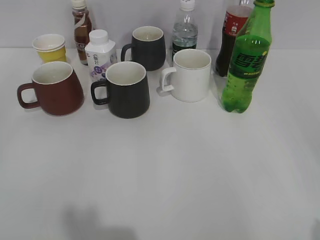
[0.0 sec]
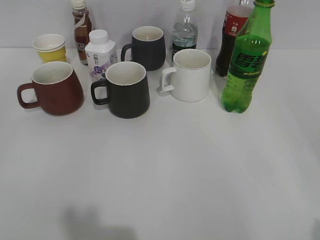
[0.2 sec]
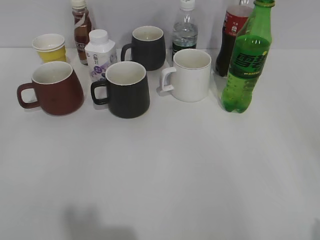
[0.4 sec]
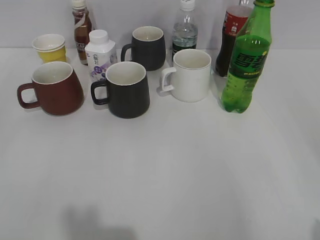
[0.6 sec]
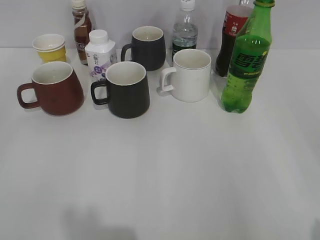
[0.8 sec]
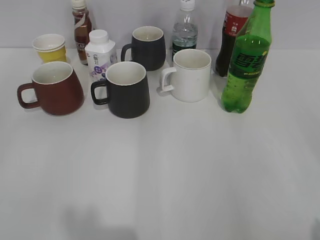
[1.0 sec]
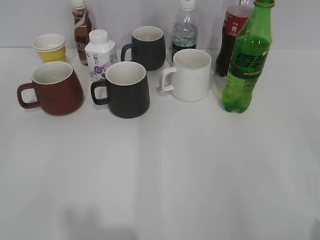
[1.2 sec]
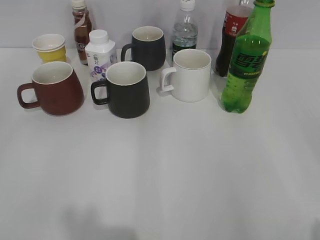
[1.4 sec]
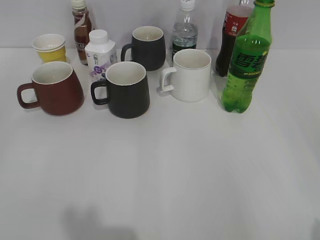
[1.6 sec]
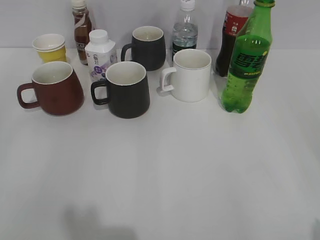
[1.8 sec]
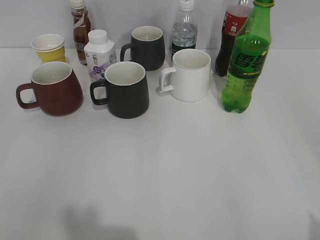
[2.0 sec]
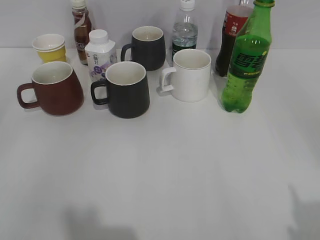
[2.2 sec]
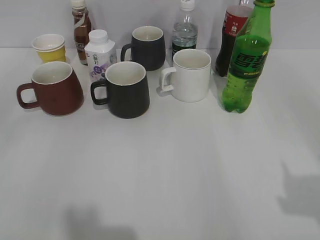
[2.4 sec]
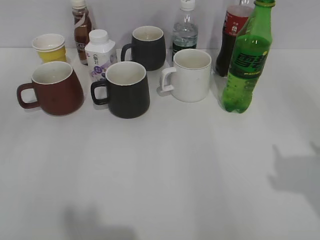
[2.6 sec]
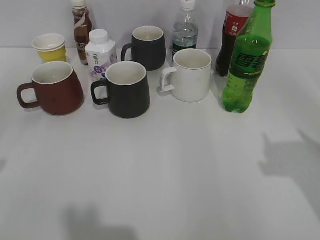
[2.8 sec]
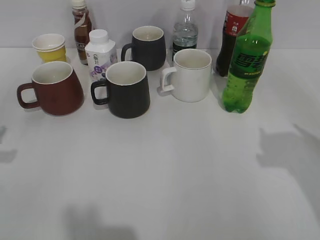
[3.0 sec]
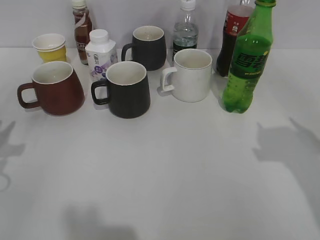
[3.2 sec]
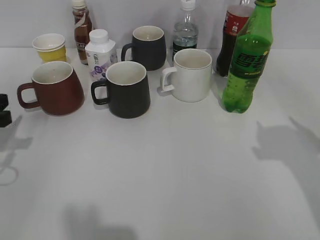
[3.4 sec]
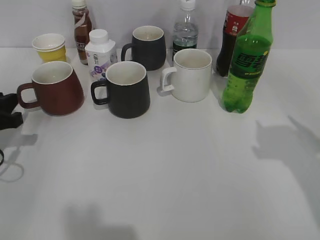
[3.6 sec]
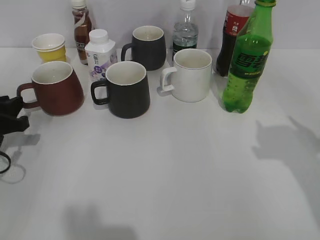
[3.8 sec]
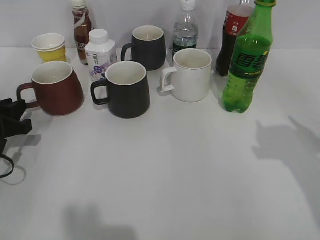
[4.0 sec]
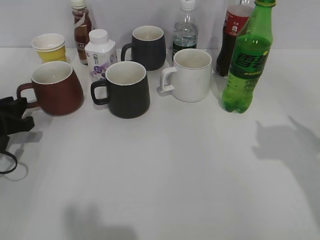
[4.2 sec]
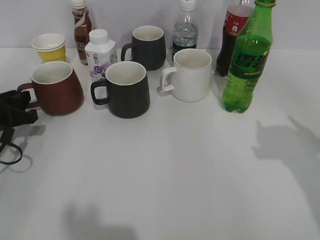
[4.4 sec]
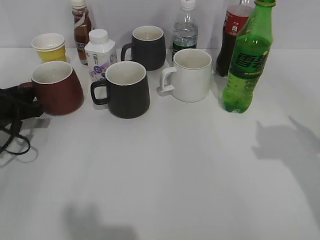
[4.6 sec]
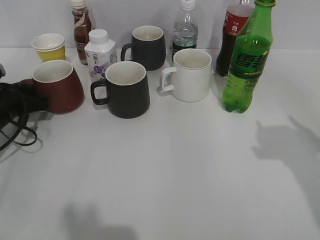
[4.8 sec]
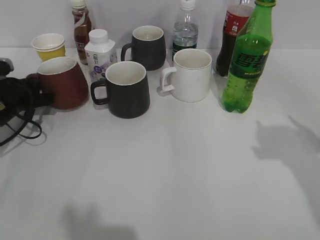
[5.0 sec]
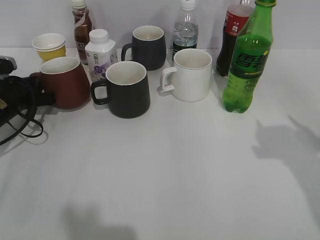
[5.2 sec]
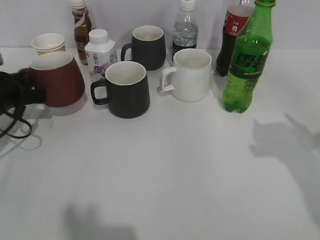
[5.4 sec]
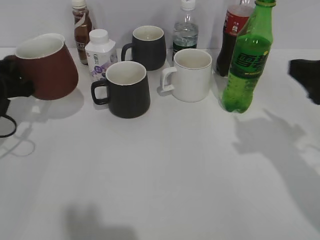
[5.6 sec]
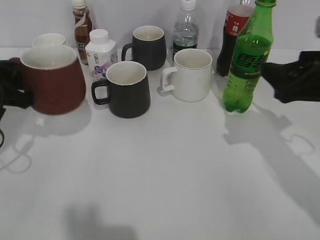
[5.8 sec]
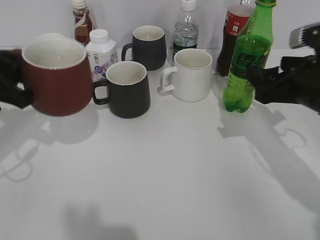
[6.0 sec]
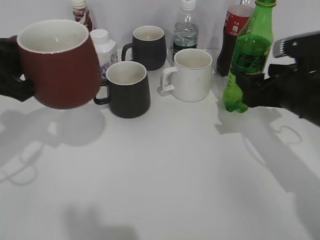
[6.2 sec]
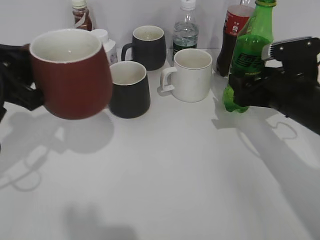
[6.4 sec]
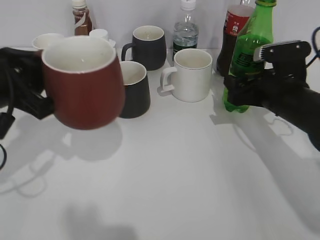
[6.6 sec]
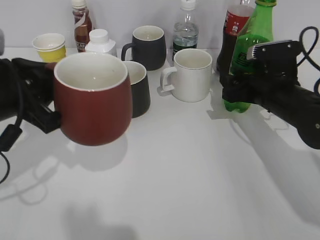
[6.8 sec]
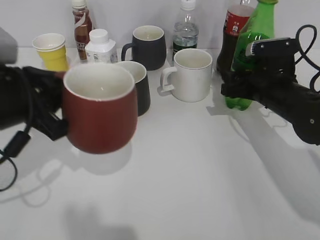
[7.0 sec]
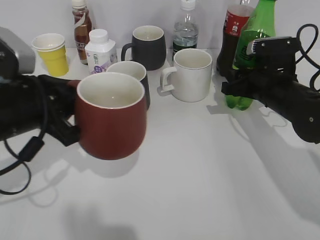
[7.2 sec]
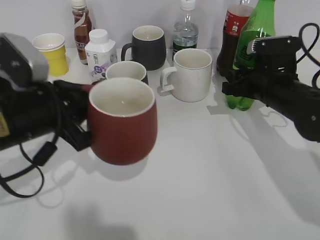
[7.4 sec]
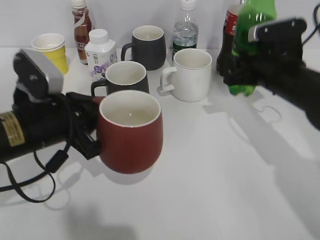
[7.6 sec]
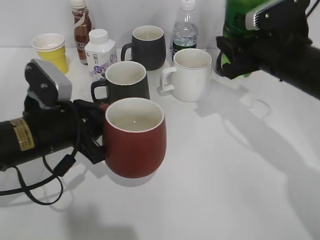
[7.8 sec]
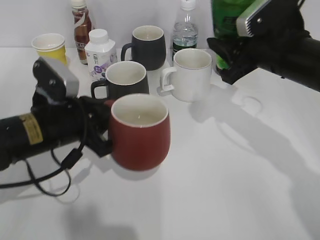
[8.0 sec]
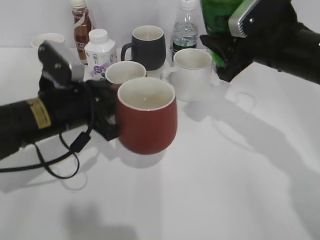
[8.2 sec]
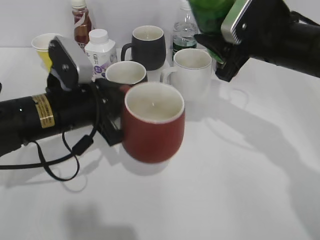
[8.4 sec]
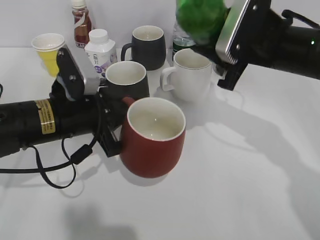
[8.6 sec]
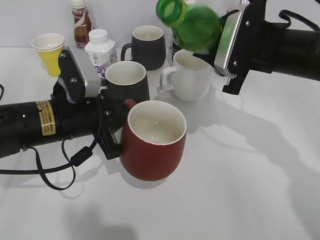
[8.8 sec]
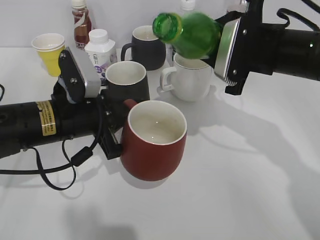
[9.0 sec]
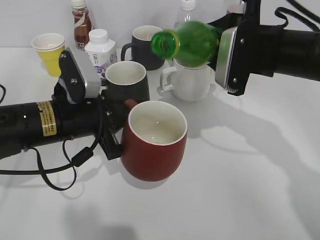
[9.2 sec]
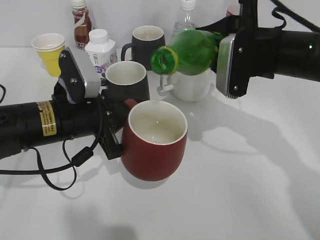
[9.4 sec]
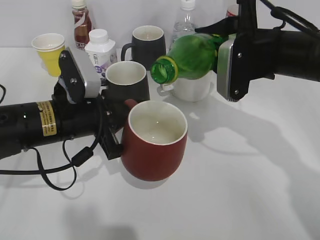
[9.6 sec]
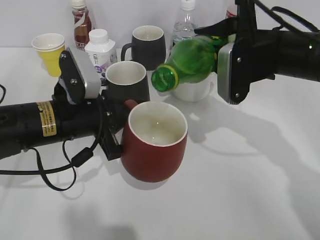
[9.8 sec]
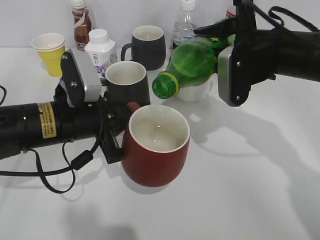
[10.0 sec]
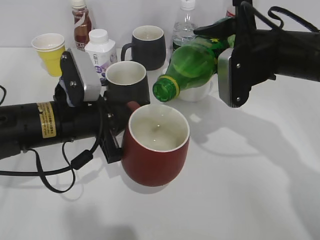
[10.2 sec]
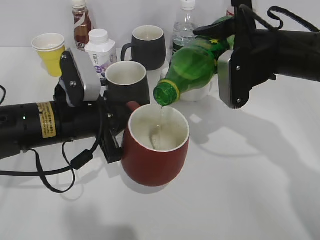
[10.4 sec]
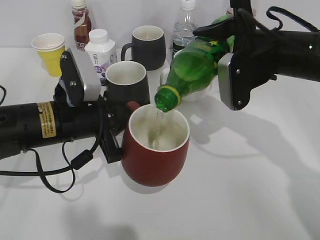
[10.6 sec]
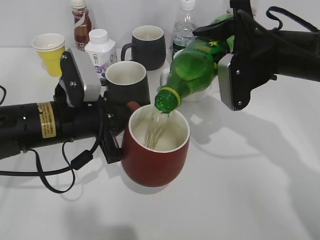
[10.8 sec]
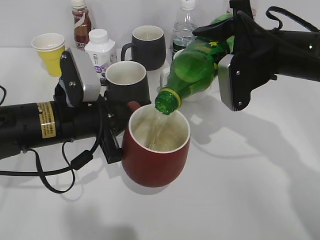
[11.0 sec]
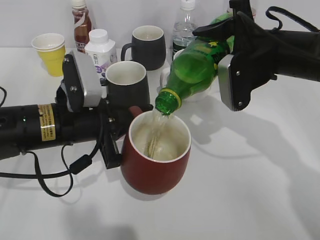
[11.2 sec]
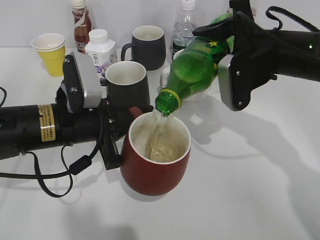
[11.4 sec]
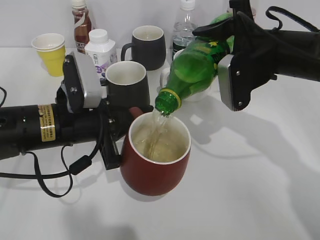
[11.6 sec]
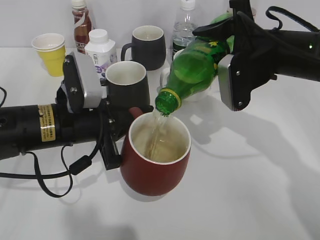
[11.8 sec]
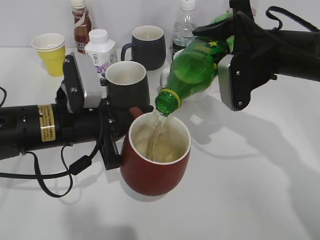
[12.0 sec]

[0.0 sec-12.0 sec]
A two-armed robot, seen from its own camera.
Step, 1.8 sec to 5.0 sec: Grasp the red cup with left gripper.
Step, 5.4 sec to 7.0 sec: Grasp the bottle with sprite with right gripper.
1.6 sec to 3.0 sec: The right gripper goes approximately 15 cm forward.
3.0 sec to 4.4 sec: The left gripper heads downward and forward, covering approximately 15 cm.
4.4 sec to 6.0 sec: The left gripper heads upward, covering approximately 10 cm, and closes its fingers. Meanwhile the right gripper travels forward, downward and to the left by about 15 cm.
6.0 sec to 7.6 sec: The left gripper is displaced to the right and downward by some 10 cm. Meanwhile the right gripper goes roughly 5 cm forward, and closes.
7.6 sec to 9.0 sec: The right gripper goes some 5 cm upward.
10.4 sec to 12.0 sec: Both grippers stay about where they are.

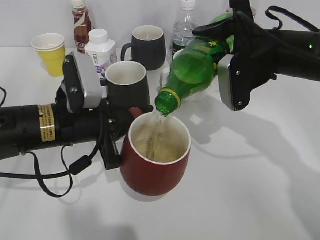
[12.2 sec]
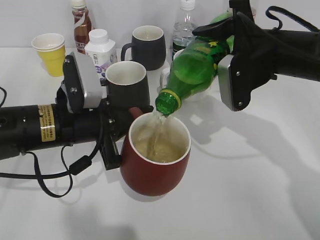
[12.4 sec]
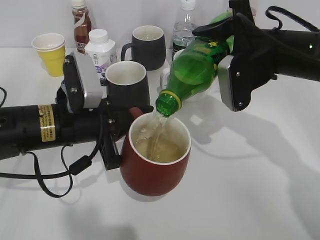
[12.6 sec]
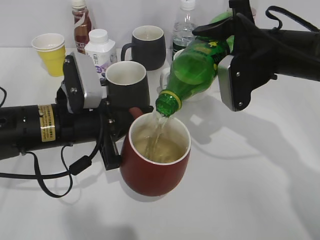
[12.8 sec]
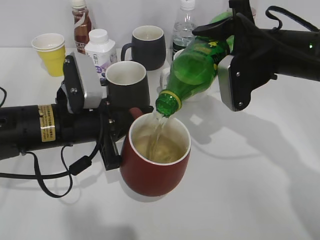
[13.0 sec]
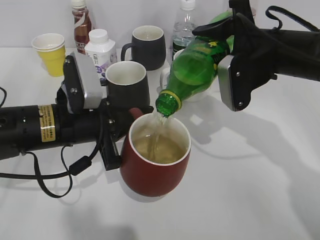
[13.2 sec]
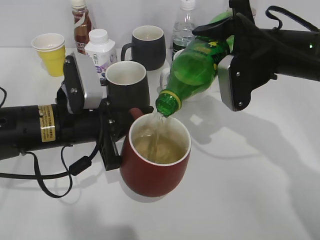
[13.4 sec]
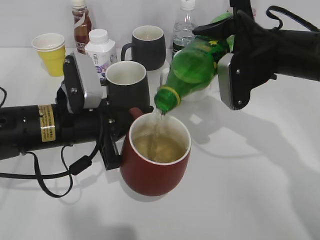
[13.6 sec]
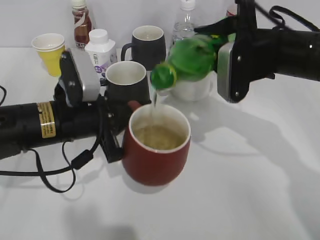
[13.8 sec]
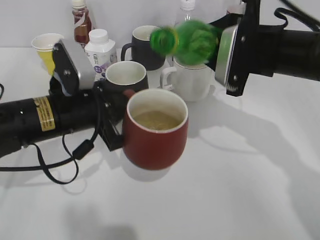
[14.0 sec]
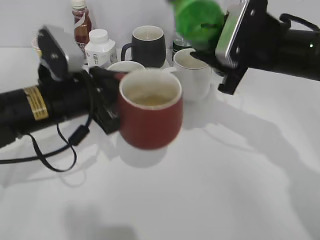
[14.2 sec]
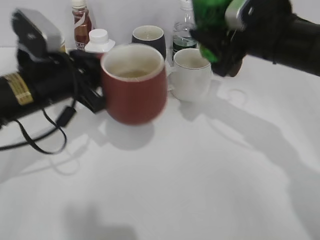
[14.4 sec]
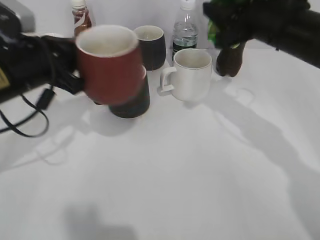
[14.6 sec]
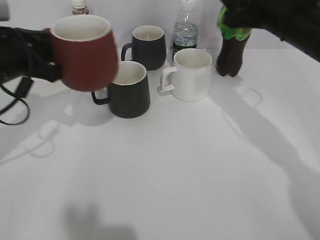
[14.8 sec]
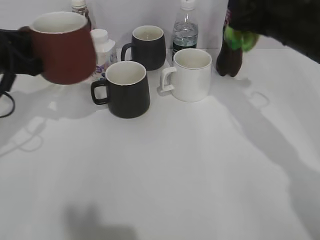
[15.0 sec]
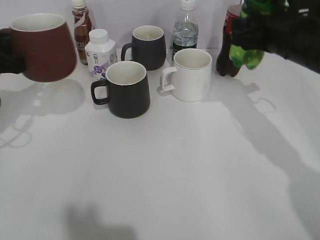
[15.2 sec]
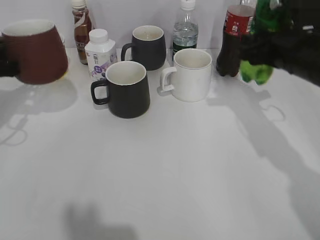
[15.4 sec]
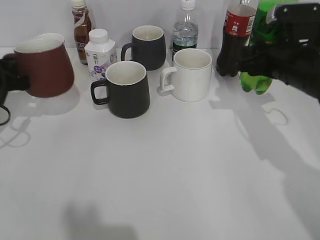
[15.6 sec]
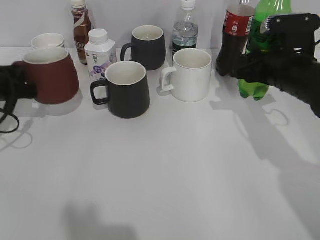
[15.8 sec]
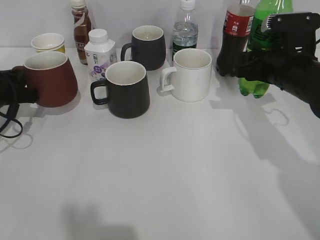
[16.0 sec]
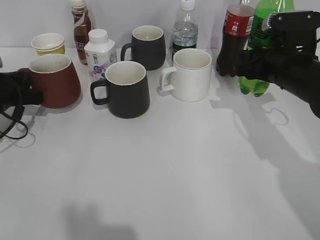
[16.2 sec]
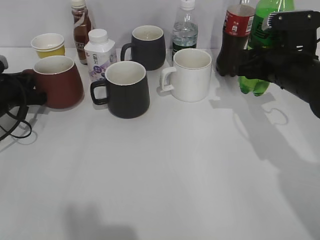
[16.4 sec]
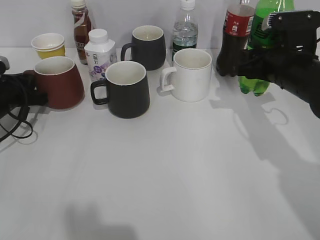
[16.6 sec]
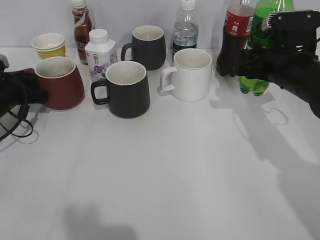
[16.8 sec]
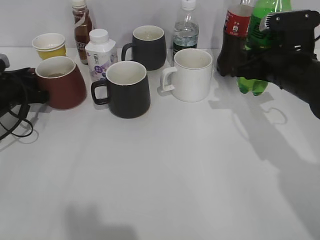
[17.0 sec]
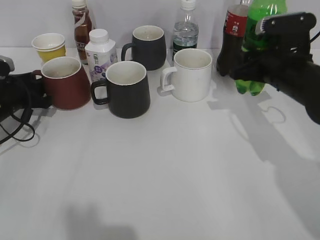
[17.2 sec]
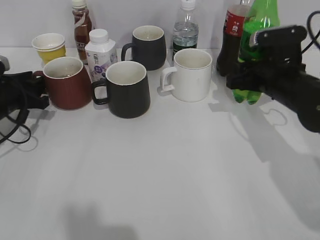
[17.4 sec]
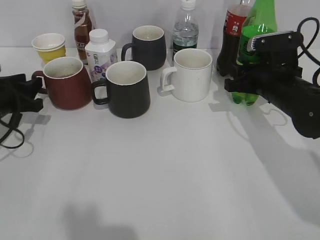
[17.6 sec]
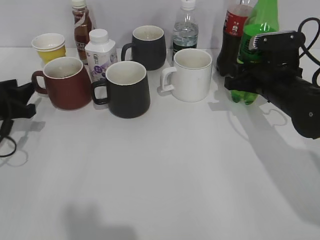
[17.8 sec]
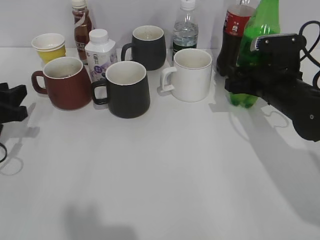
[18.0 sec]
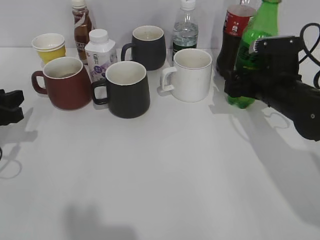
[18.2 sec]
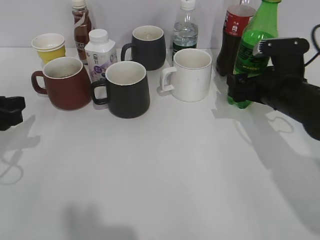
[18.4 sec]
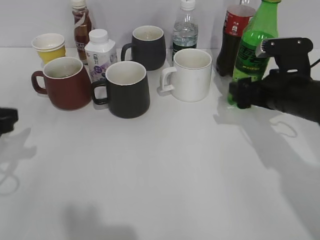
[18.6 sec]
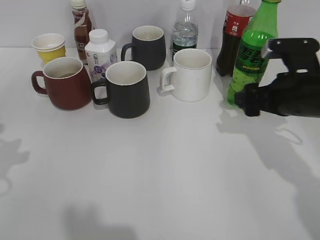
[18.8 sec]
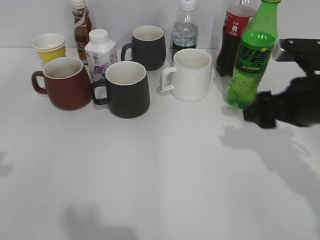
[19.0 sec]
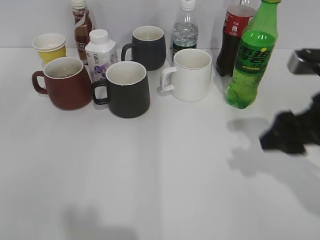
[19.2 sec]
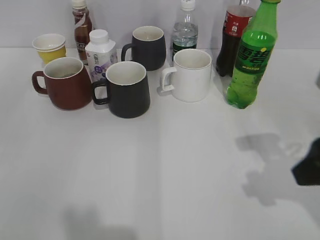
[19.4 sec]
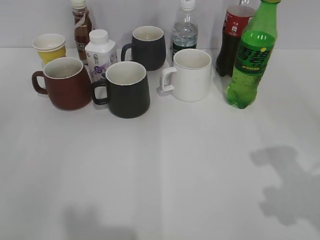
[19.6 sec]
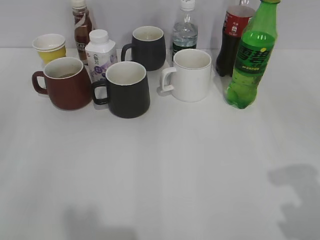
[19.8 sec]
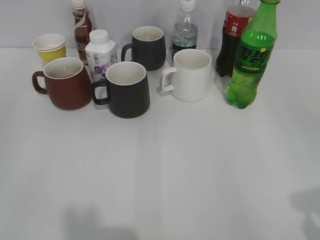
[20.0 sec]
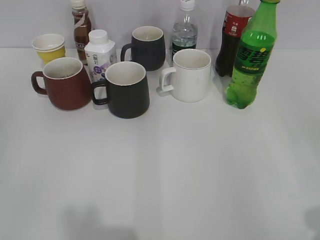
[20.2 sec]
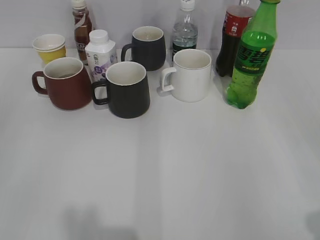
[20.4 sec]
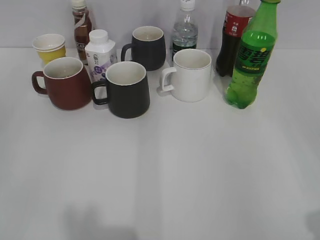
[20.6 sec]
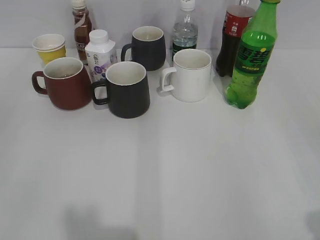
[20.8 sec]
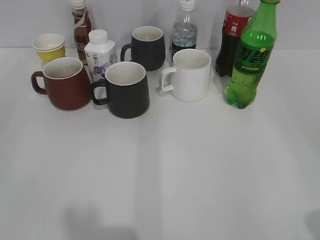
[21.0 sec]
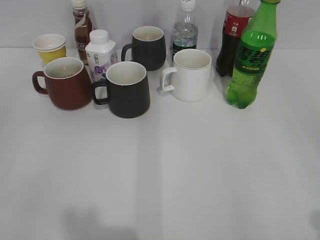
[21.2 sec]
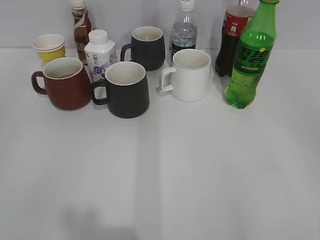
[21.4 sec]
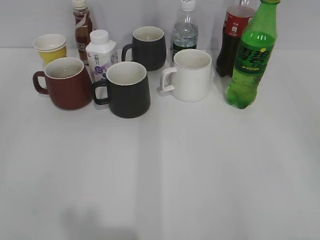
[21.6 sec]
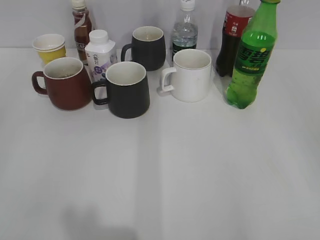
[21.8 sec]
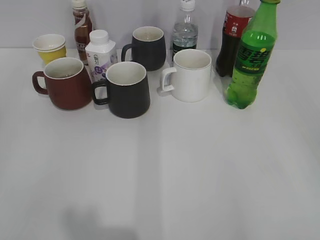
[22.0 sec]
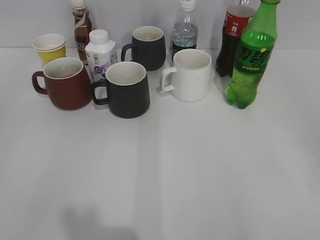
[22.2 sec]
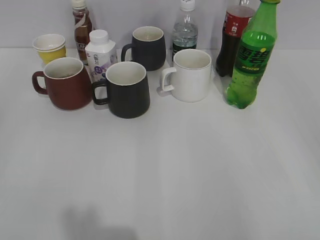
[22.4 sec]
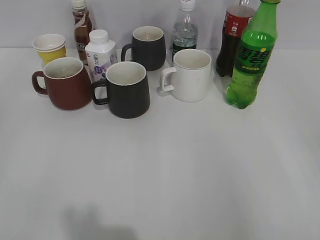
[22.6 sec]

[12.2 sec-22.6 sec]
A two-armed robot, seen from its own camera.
Step, 14.2 sec to 16.8 sec: Place the red cup on the table with left gripper.
Step, 17.0 sec to 18.4 sec: Place the sprite bottle on the table with right gripper.
12.2 sec to 13.6 sec: Neither gripper changes place.
13.6 sec to 15.2 sec: The left gripper goes some 15 cm to the left.
15.2 sec to 16.6 sec: The right gripper goes about 5 cm downward, while the left gripper heads downward and forward, covering roughly 15 cm.
16.6 sec to 18.2 sec: The left gripper goes some 10 cm backward, and opens; the right gripper opens its fingers.
18.2 sec to 19.6 sec: Both grippers travel together backward and upward, roughly 25 cm.
19.6 sec to 21.2 sec: The right gripper goes approximately 15 cm backward and to the right.
